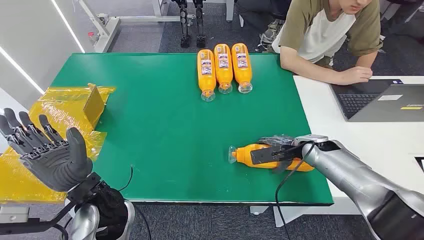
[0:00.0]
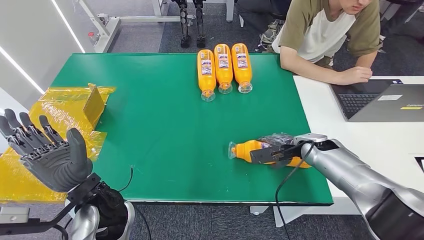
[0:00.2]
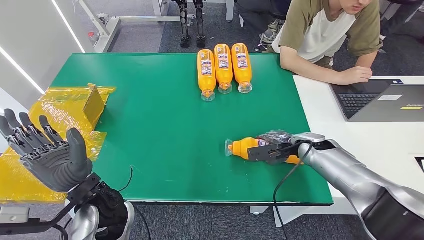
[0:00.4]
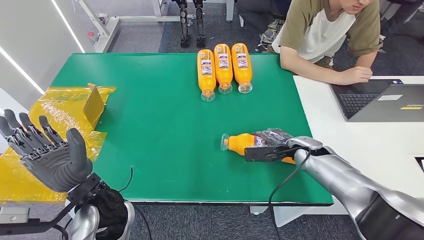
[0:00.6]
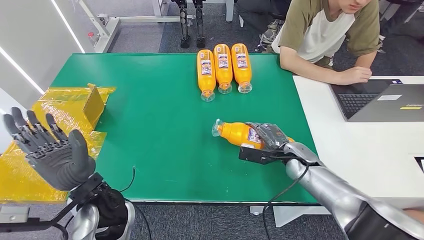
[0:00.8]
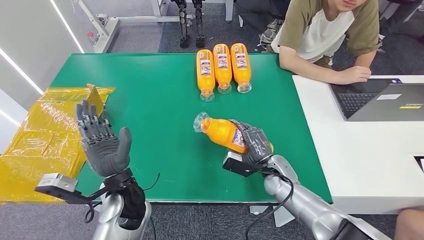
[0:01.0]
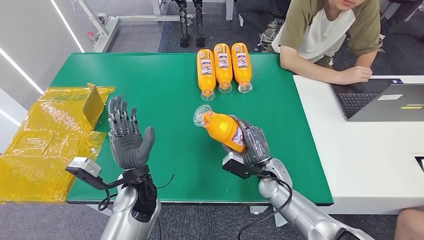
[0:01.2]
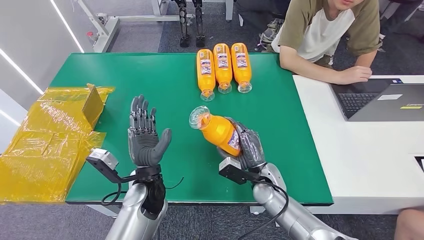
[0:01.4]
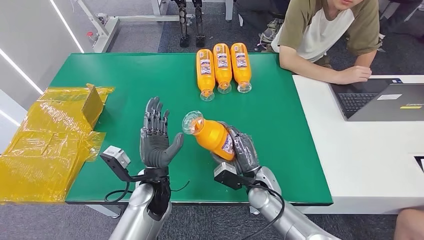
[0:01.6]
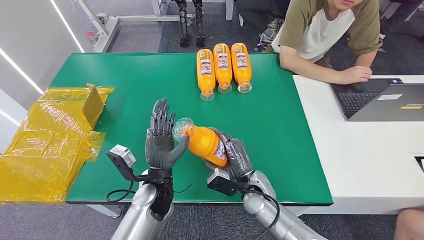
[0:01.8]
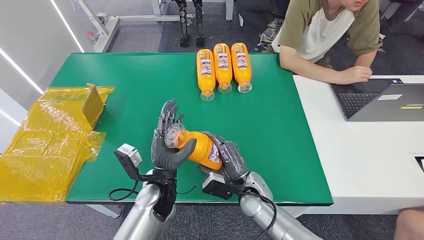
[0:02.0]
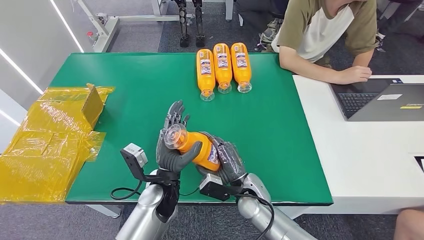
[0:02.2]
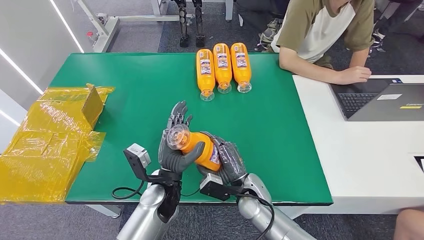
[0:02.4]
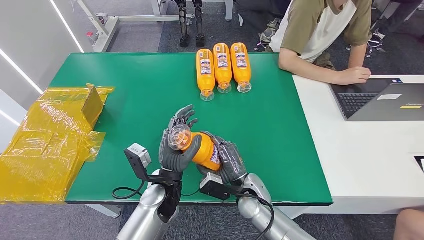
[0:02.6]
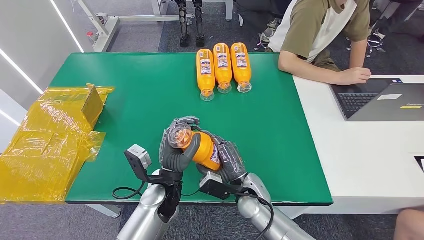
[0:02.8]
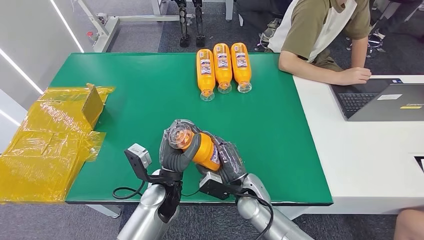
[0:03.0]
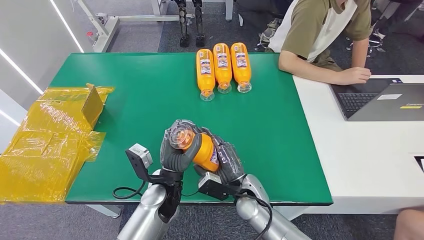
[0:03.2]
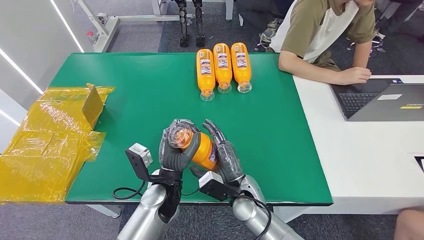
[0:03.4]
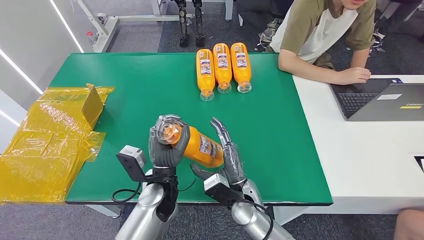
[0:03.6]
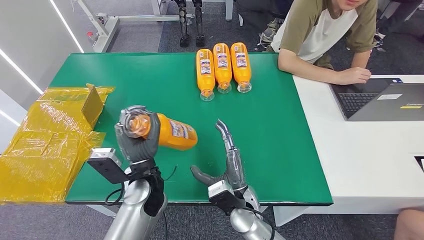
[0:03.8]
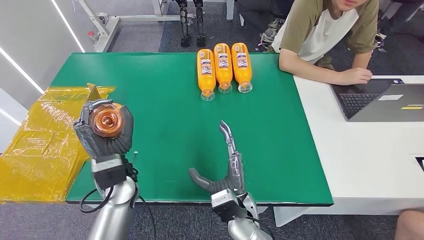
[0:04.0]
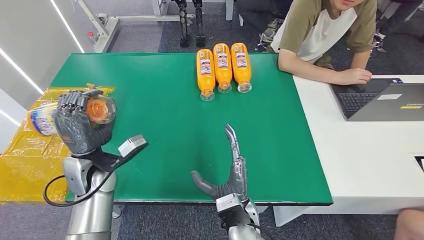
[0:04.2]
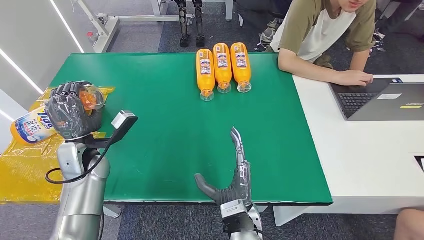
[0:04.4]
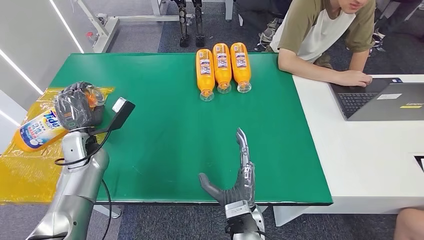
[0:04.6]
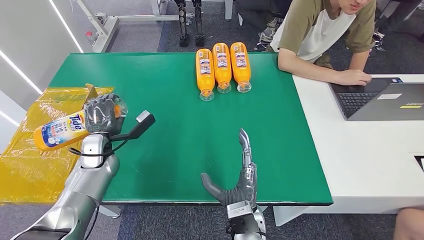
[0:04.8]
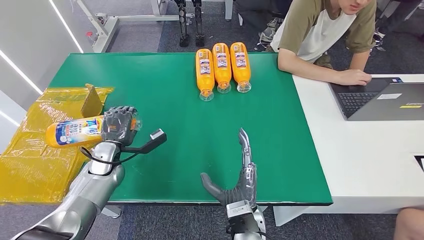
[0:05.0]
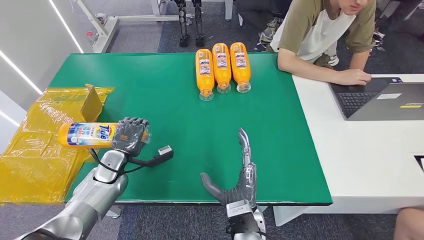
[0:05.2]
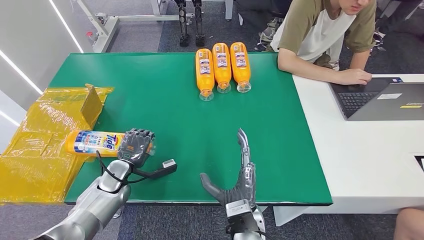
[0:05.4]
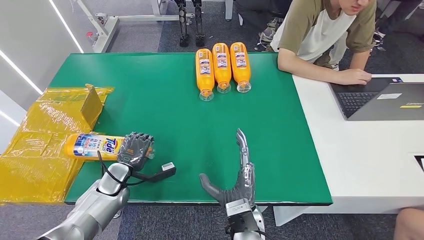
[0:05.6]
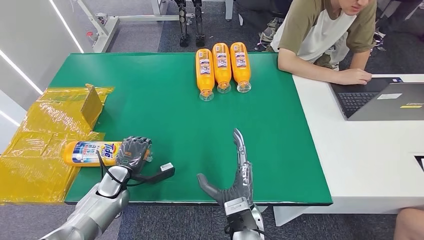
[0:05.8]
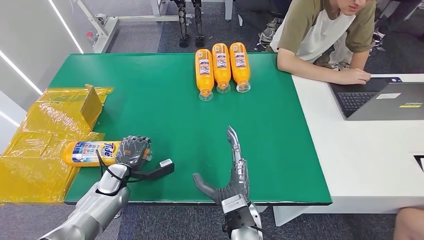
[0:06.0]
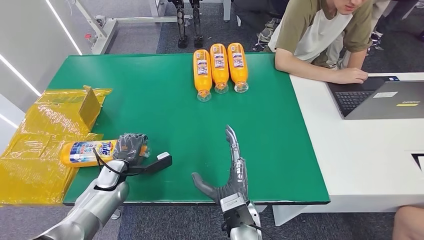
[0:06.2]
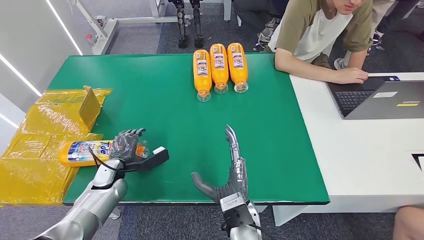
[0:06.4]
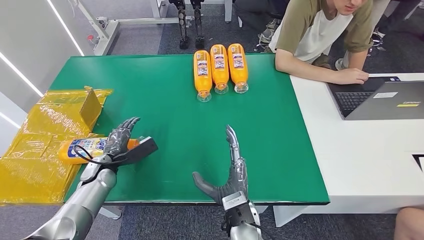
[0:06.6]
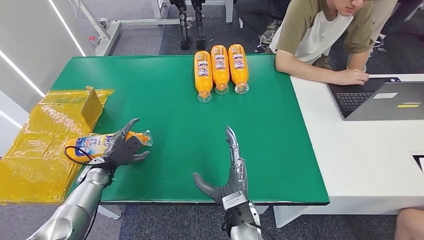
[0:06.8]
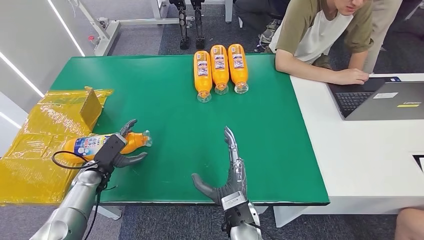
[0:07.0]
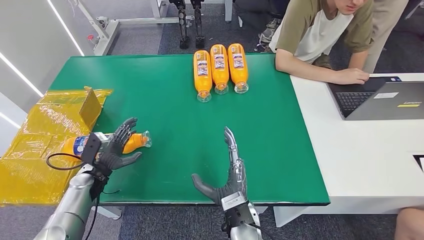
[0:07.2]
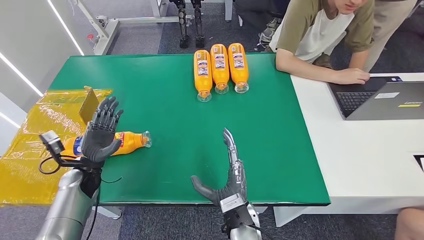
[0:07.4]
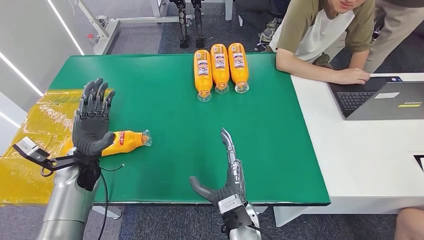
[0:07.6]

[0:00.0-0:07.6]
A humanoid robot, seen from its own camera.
Step, 0:00.0 to 0:02.4: Pick up the bottle from the table.
Step, 0:02.6 to 0:07.6: Turn the bottle to the front side.
0:01.6 to 0:03.0: The right hand moves some 5 cm.
0:03.0 to 0:04.6: The right hand is displaced backward by some 10 cm; the left hand is displaced to the left and forward by about 25 cm.
0:04.6 to 0:06.0: The left hand travels downward and backward by about 15 cm.
0:06.0 to 0:07.6: The left hand travels upward by approximately 10 cm.
